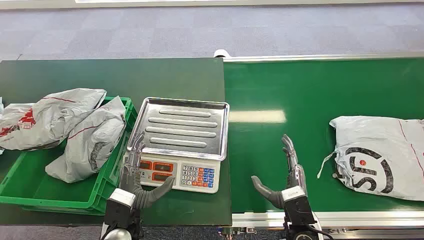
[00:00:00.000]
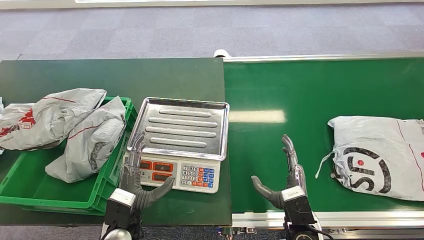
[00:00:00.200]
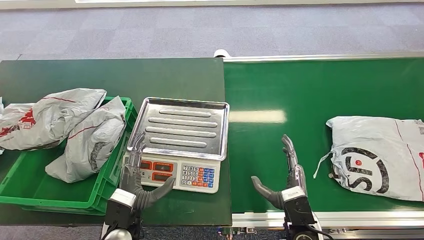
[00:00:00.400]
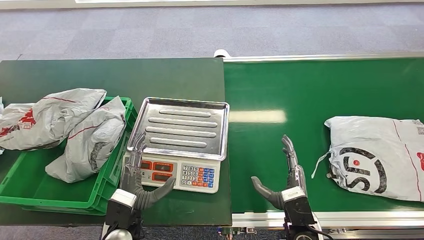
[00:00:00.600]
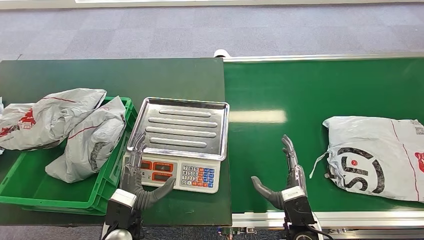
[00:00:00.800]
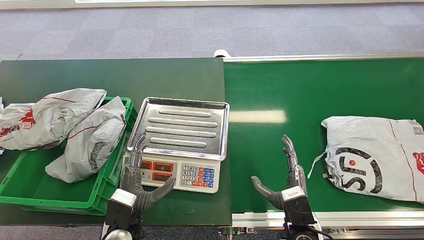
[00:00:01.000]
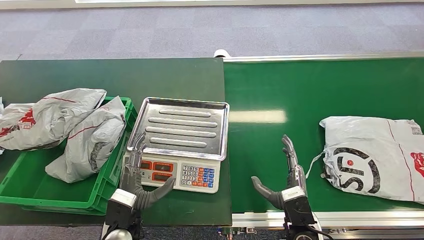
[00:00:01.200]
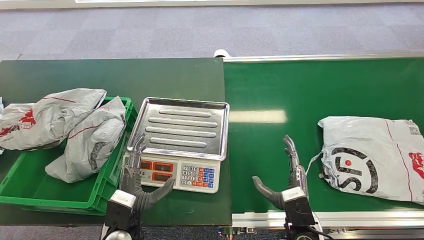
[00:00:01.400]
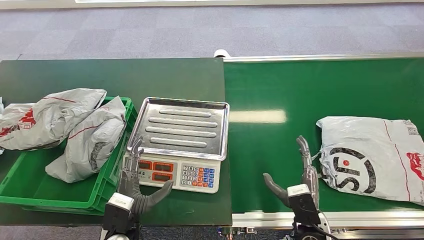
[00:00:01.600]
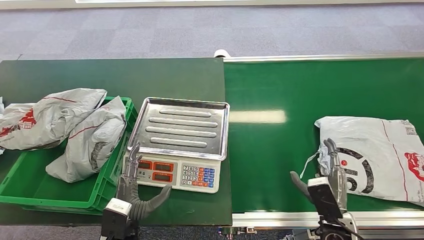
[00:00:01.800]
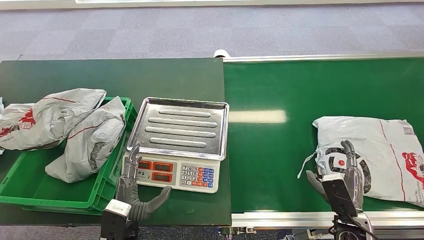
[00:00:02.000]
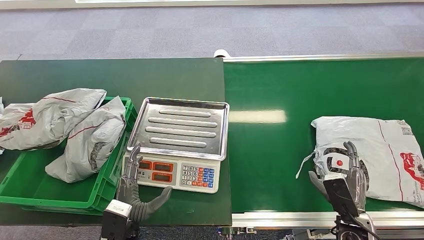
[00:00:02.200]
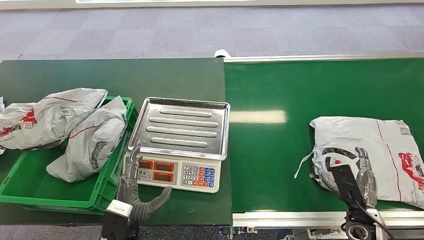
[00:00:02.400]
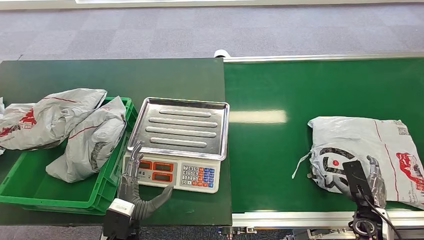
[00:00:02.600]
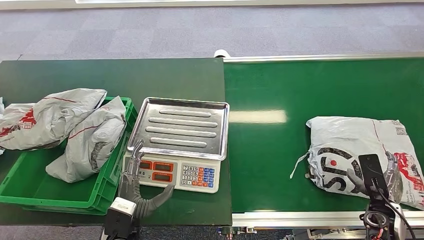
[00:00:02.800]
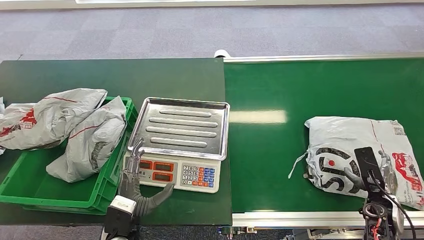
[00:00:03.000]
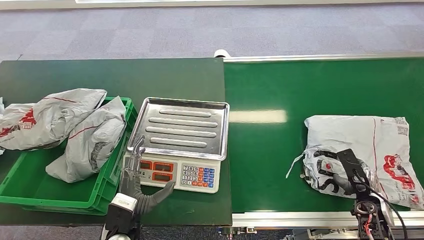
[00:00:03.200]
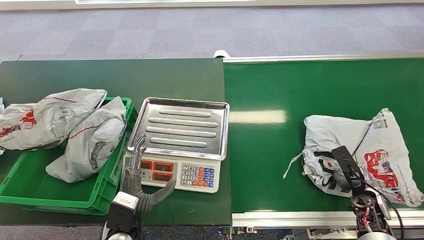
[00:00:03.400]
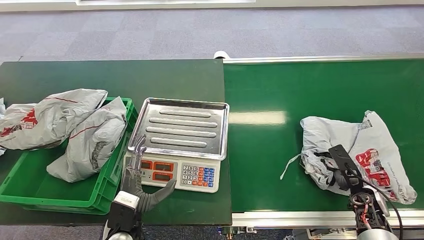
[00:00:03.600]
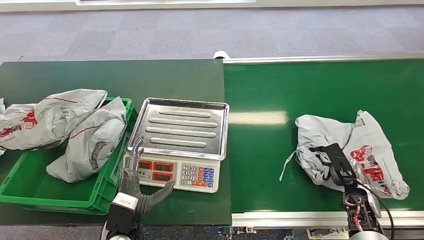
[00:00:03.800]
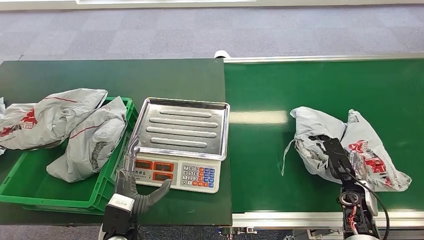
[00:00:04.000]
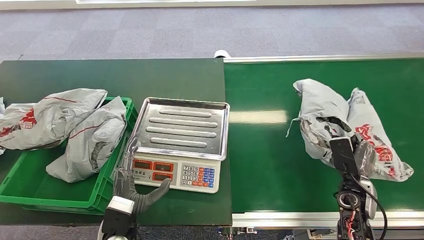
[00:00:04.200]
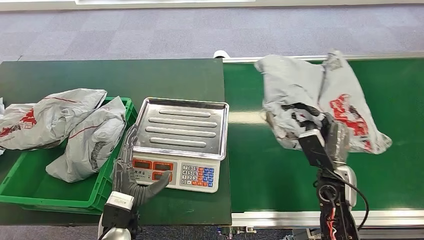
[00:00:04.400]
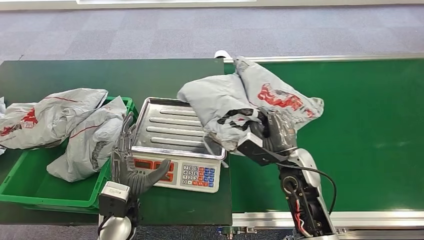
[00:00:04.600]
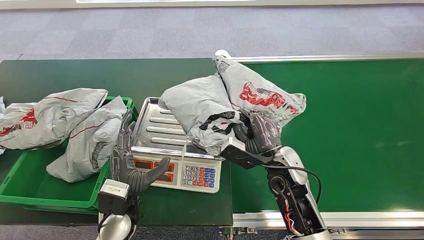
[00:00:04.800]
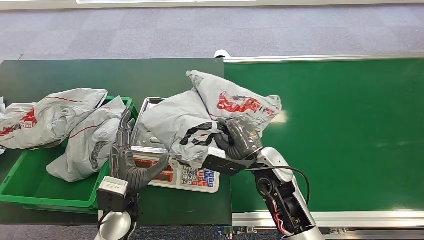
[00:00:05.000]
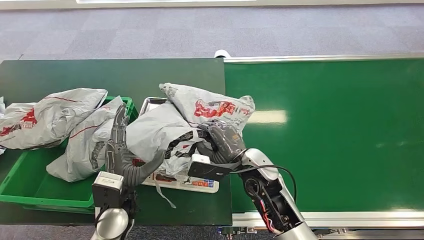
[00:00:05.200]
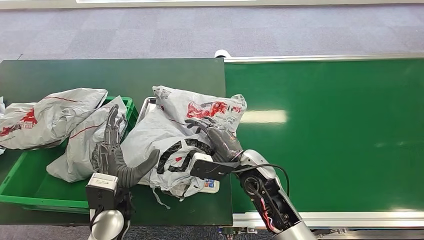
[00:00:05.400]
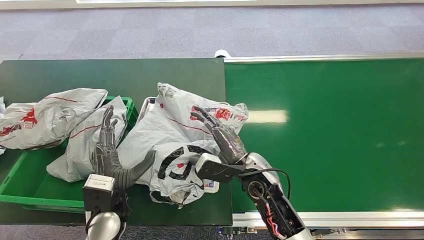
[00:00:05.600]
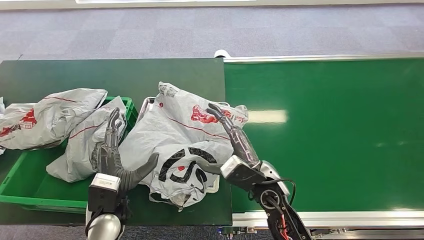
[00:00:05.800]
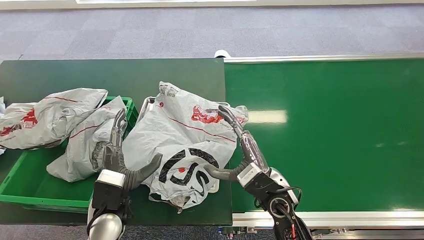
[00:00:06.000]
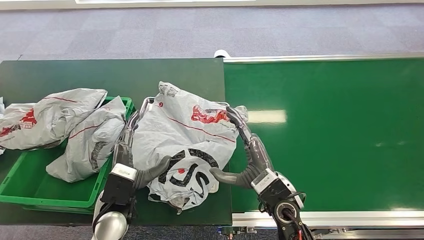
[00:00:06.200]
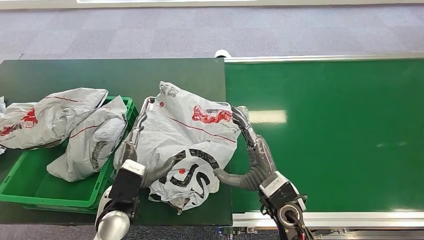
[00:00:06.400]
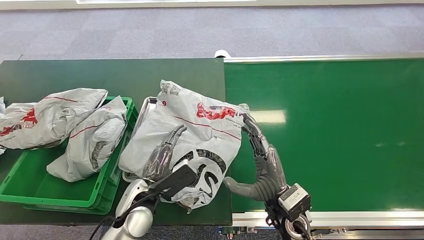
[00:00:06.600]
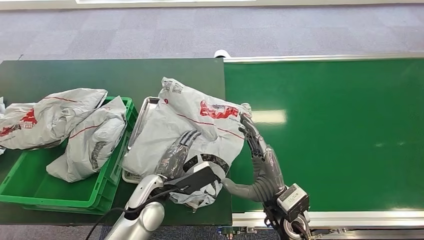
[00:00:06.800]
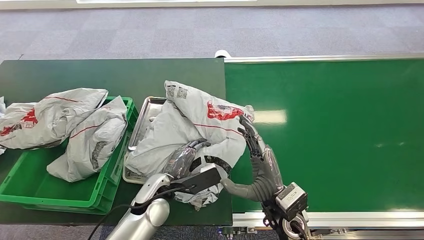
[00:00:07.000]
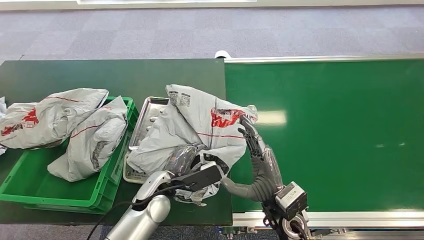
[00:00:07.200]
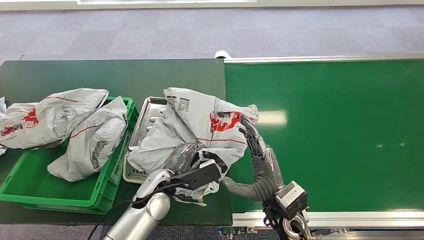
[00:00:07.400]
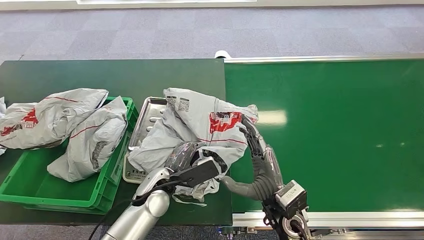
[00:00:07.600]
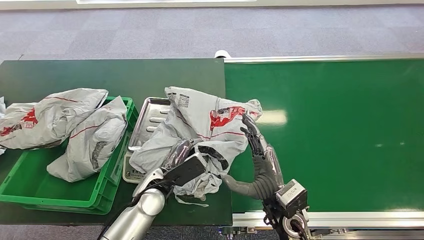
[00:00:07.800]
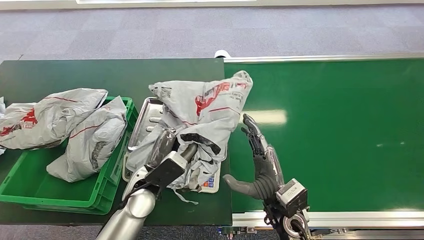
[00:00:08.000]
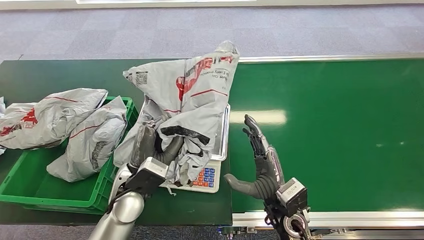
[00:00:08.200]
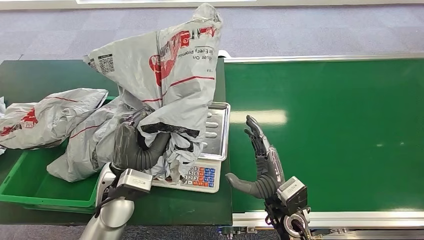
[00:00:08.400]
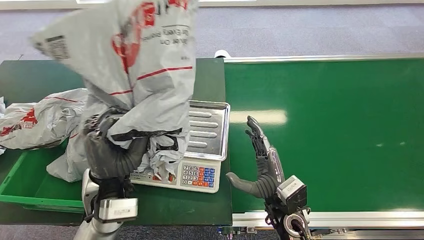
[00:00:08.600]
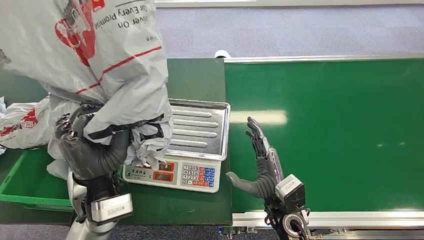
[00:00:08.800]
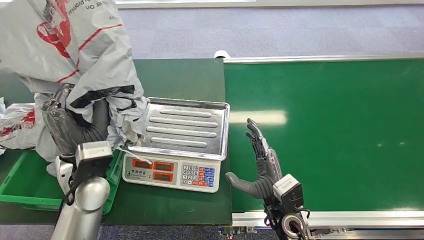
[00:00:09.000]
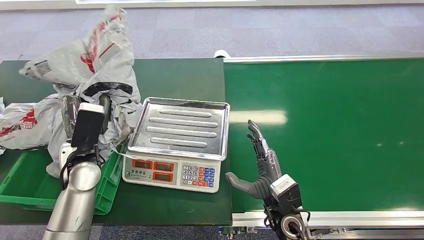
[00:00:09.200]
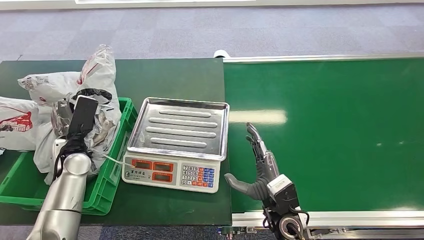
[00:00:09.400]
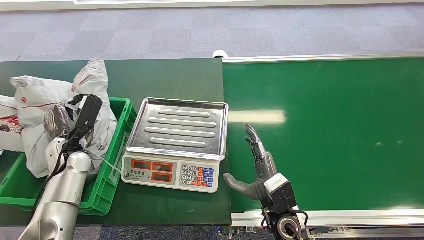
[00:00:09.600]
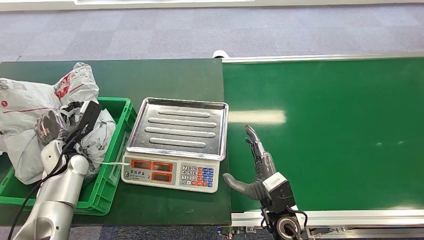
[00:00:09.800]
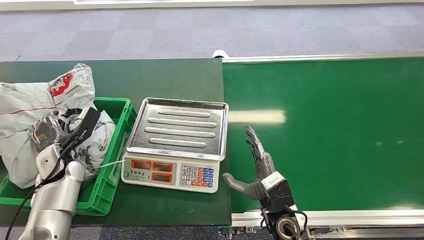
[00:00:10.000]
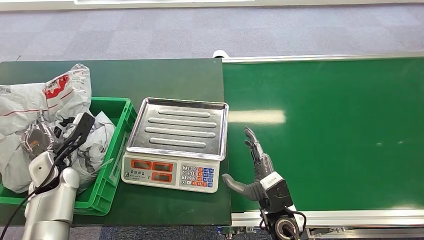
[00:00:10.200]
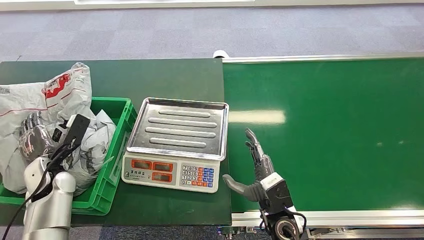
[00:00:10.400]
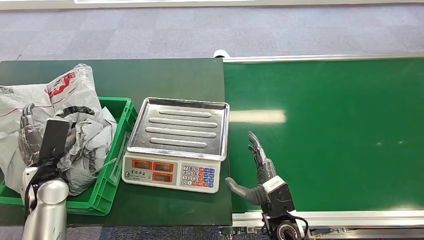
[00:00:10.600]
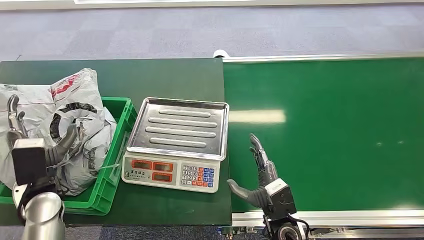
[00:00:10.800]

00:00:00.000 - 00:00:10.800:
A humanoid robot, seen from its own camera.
Step, 00:00:00.000 - 00:00:04.200: Pick up the package from the conveyor belt.
Step, 00:00:04.600 - 00:00:06.400: Place the package onto the inbound machine.
Step, 00:00:06.600 - 00:00:08.400: Pick up the package from the inbound machine.
Step, 00:00:08.800 - 00:00:10.600: Place the package into the parcel locker.
00:00:01.600 - 00:00:03.000: The right hand shifts approximately 20 cm to the right.
00:00:06.200 - 00:00:07.800: The left hand goes approximately 10 cm forward and to the right.
